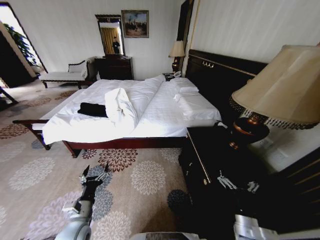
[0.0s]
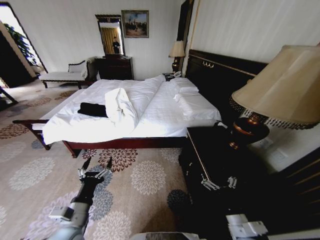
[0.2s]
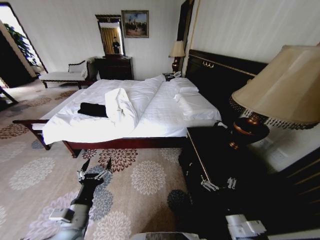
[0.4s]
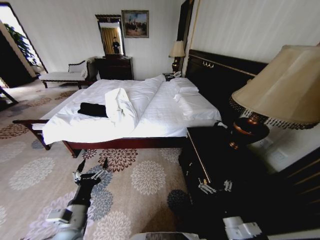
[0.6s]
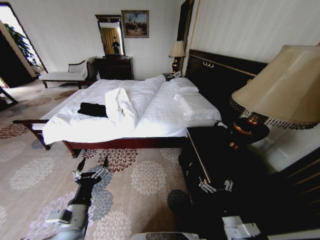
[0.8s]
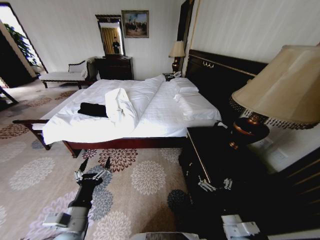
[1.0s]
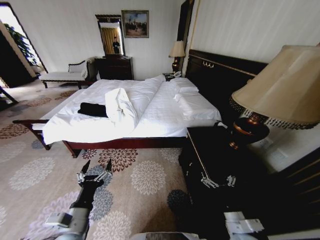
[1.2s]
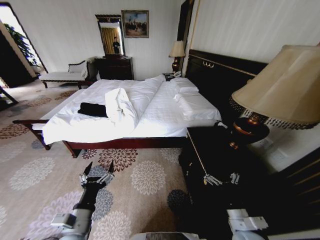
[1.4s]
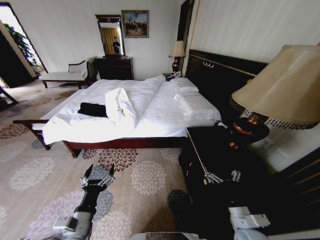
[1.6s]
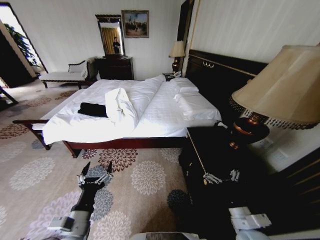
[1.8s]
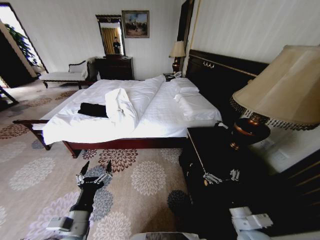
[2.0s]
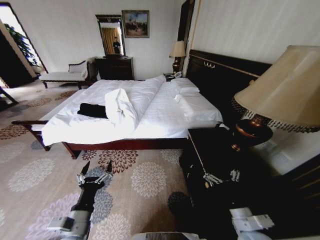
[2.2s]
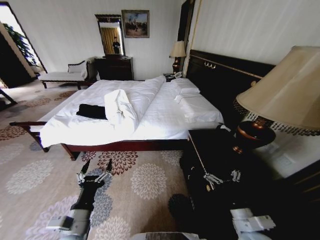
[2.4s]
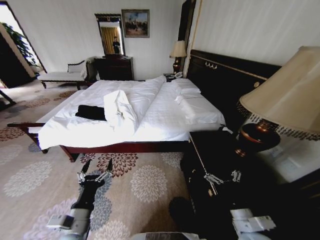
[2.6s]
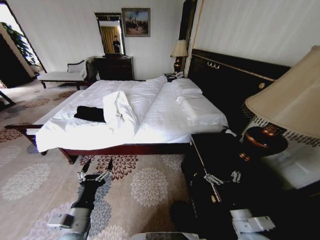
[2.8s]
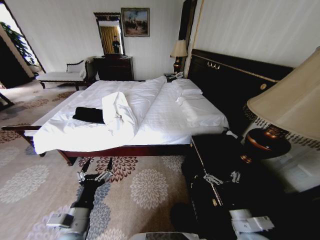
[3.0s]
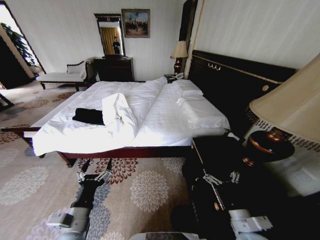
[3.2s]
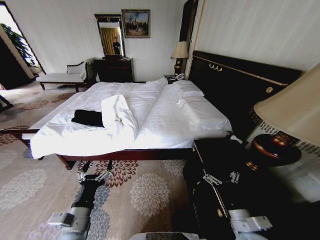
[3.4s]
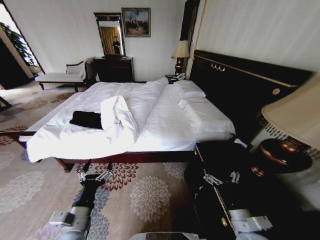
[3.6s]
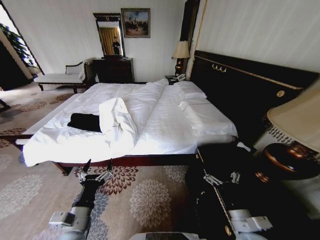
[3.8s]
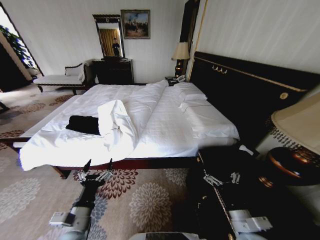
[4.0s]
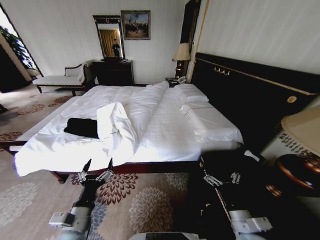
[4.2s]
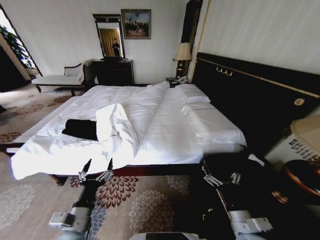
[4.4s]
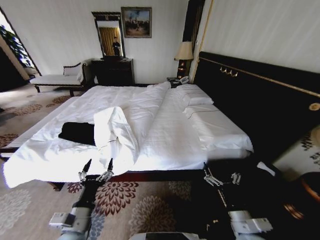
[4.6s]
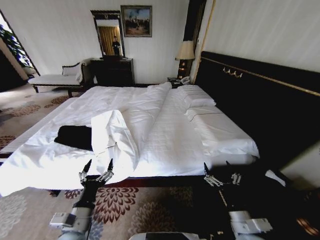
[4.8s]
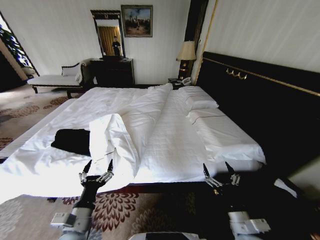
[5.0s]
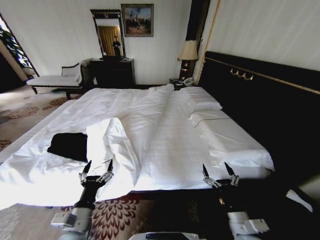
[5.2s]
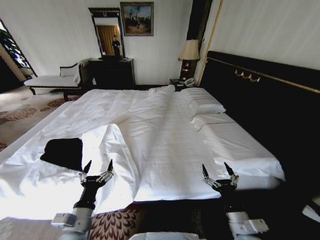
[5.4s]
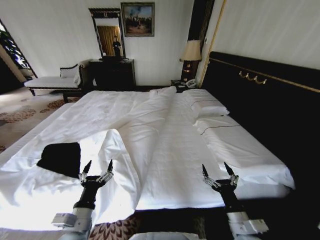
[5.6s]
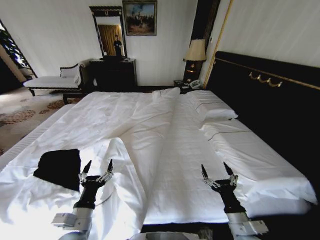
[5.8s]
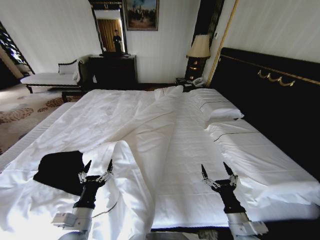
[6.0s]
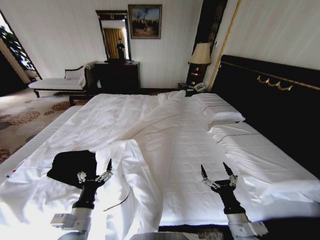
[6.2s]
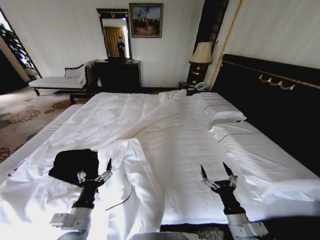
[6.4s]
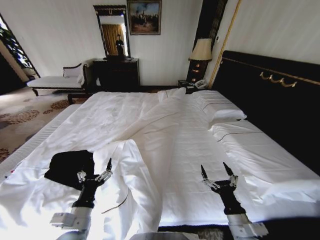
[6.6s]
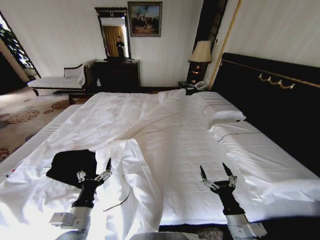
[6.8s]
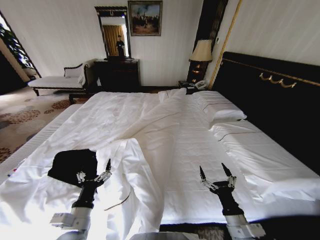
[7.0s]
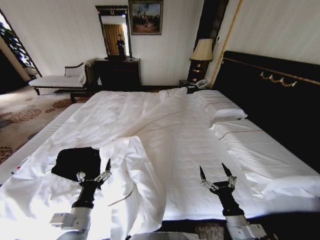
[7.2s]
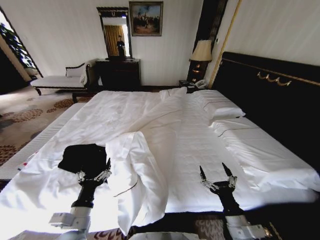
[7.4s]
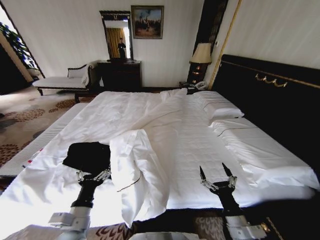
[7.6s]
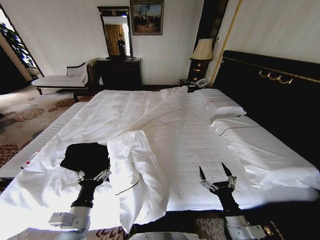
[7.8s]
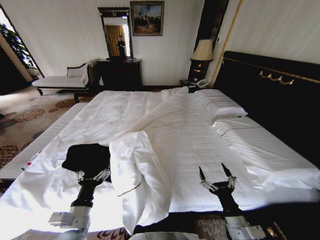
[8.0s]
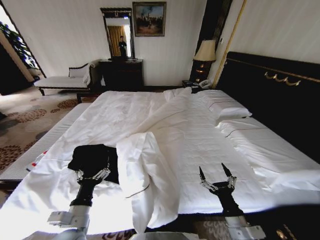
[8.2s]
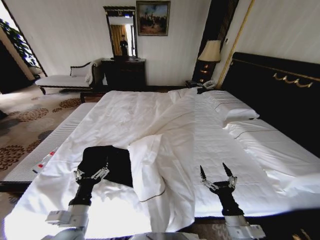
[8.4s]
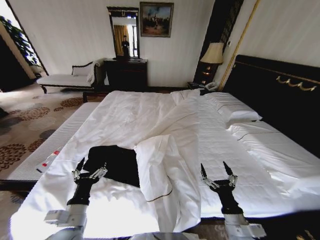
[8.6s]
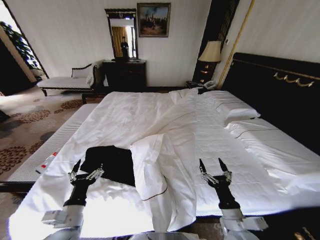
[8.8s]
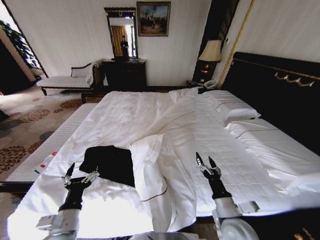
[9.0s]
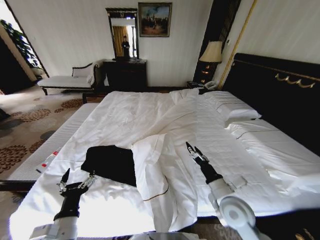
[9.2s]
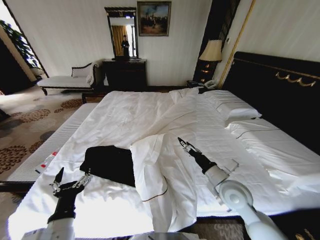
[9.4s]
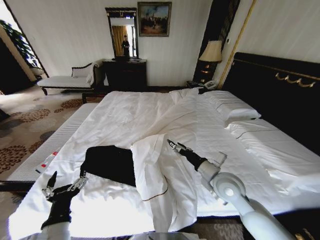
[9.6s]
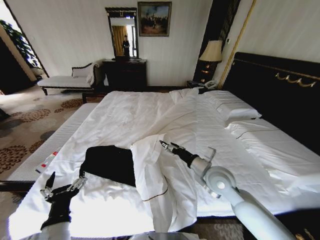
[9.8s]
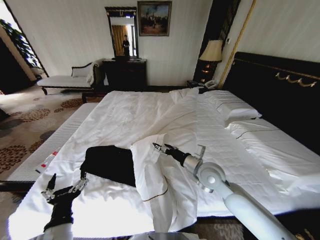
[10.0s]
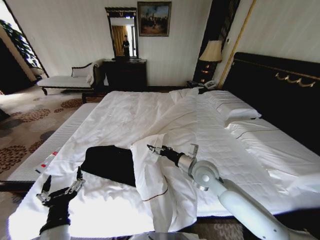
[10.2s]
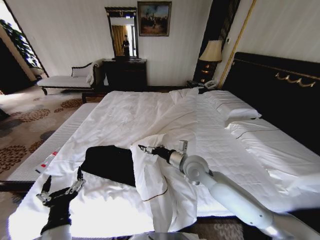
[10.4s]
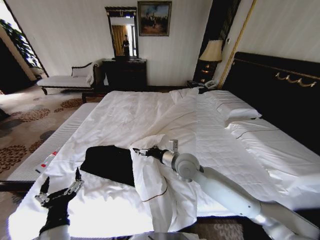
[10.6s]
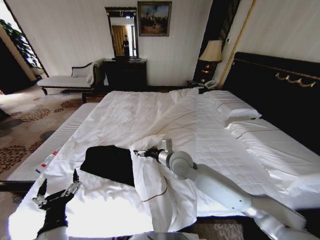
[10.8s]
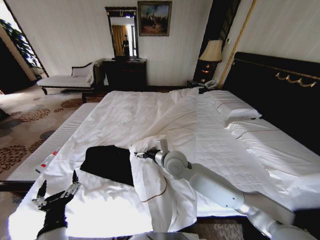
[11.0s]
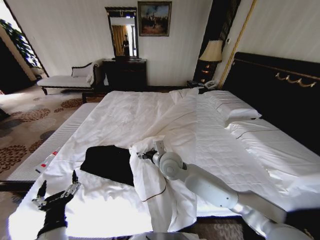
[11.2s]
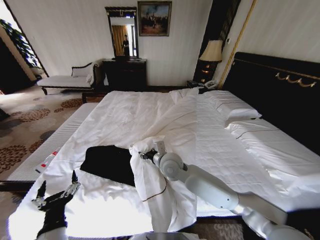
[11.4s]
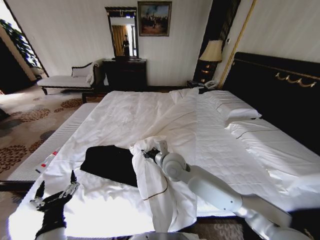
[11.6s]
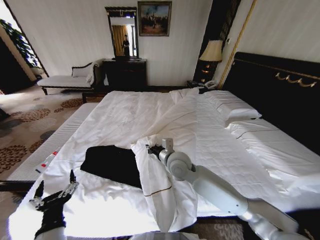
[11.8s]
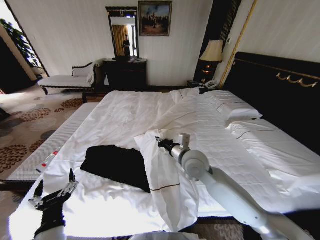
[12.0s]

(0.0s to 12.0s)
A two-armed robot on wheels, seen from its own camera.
Task of the whole recording: Fold the clothes on the bed.
7.6s - 9.0s: The right gripper moves approximately 5 cm.
9.0s - 10.4s: The left gripper changes place by about 5 cm, while the right gripper shifts roughly 25 cm forward, to the left and upward.
10.4s - 12.0s: The right gripper reaches about 10 cm to the left, then returns, and closes.

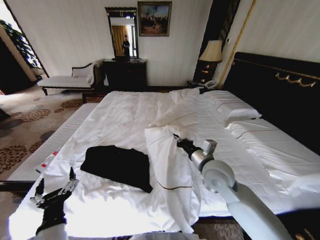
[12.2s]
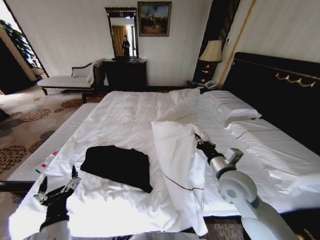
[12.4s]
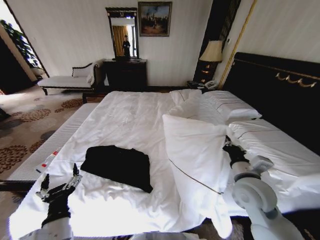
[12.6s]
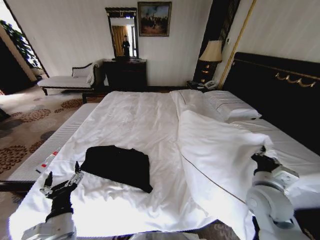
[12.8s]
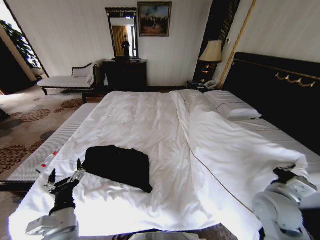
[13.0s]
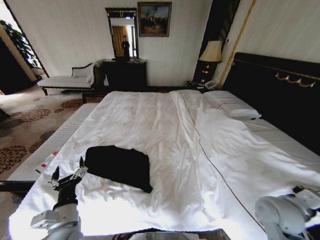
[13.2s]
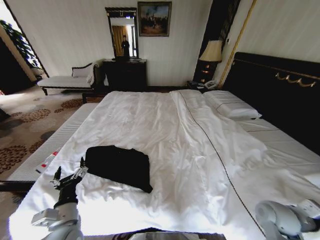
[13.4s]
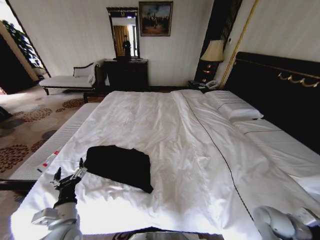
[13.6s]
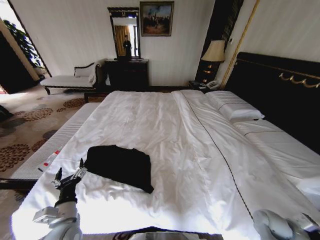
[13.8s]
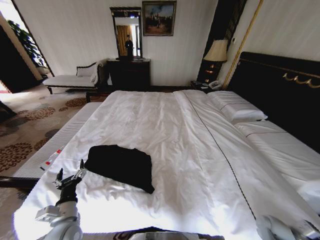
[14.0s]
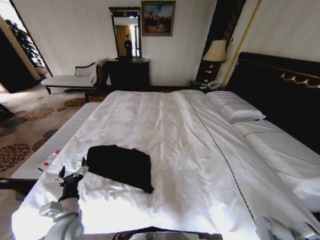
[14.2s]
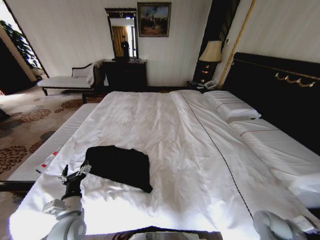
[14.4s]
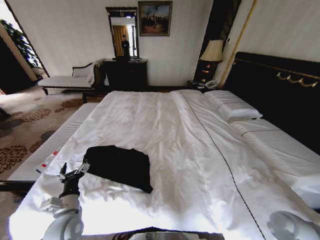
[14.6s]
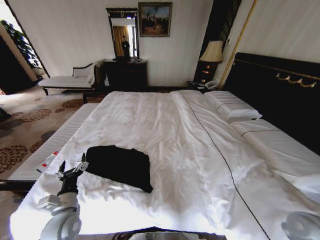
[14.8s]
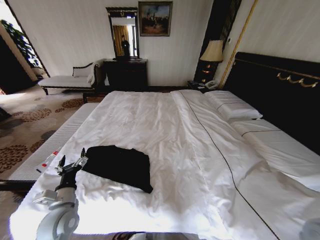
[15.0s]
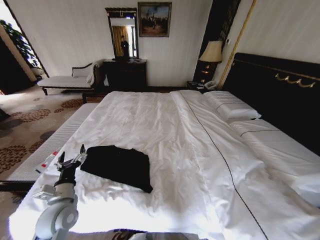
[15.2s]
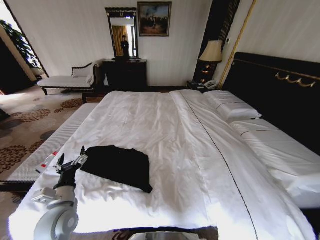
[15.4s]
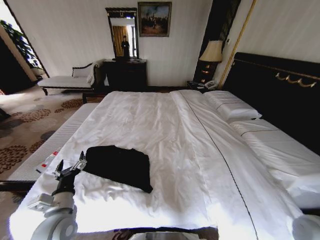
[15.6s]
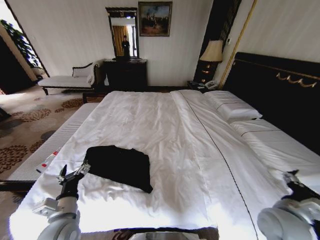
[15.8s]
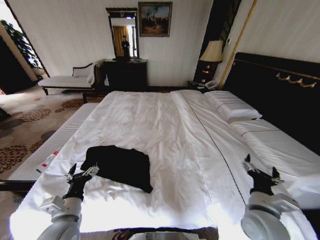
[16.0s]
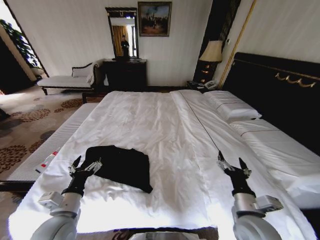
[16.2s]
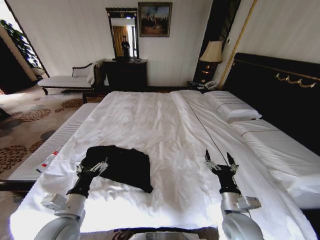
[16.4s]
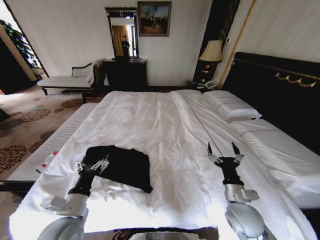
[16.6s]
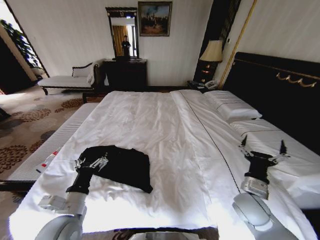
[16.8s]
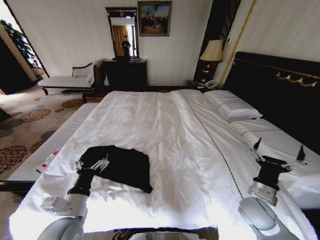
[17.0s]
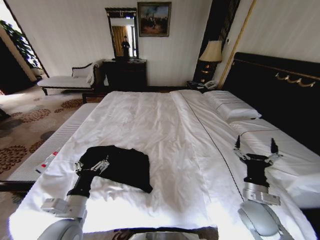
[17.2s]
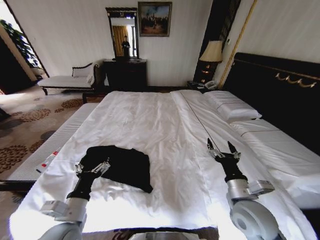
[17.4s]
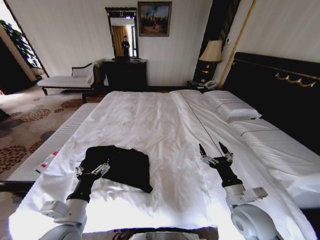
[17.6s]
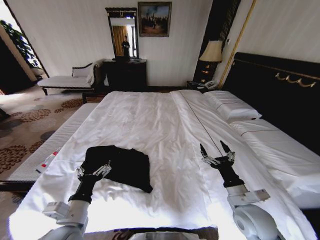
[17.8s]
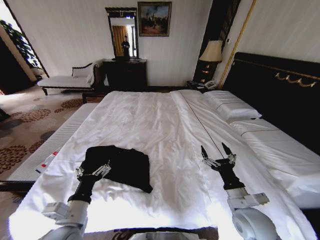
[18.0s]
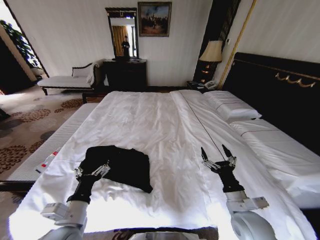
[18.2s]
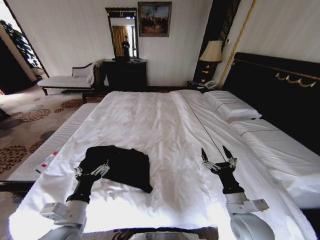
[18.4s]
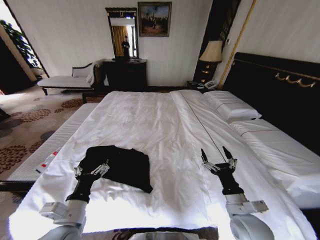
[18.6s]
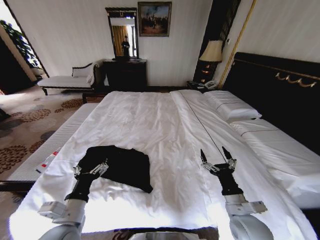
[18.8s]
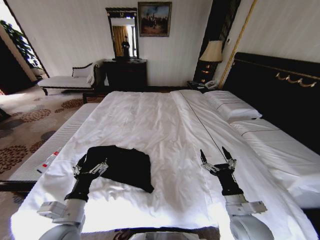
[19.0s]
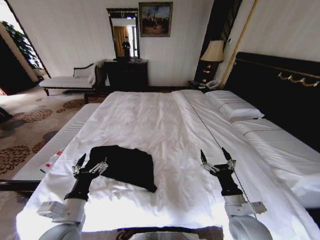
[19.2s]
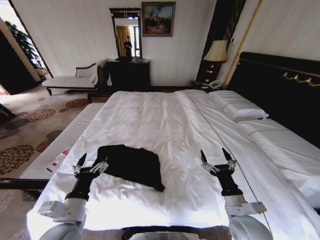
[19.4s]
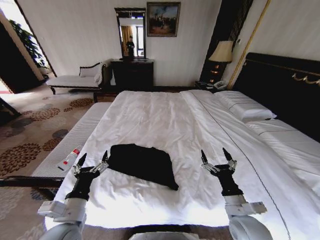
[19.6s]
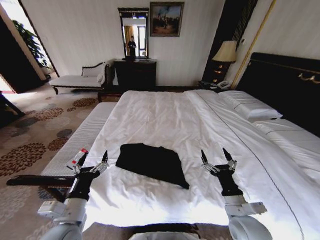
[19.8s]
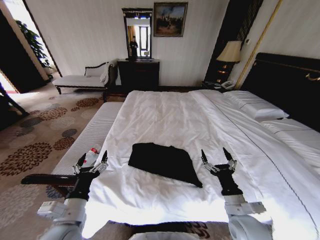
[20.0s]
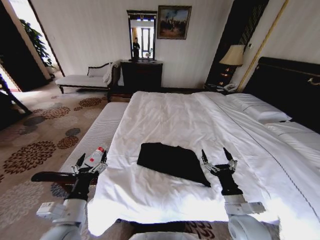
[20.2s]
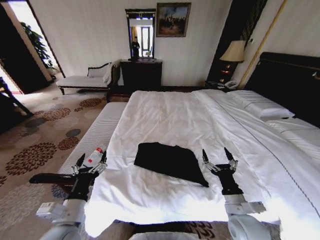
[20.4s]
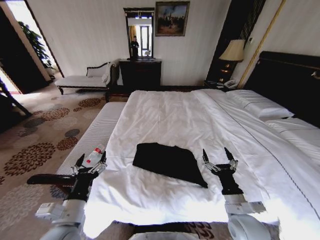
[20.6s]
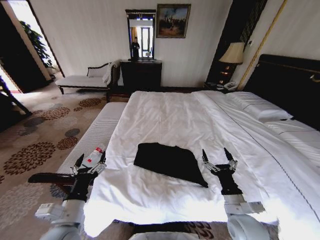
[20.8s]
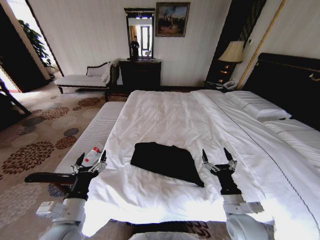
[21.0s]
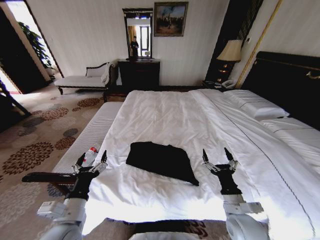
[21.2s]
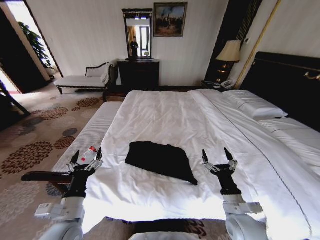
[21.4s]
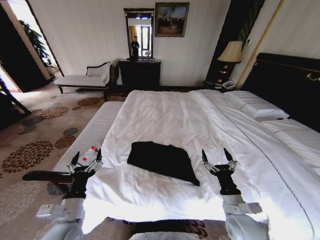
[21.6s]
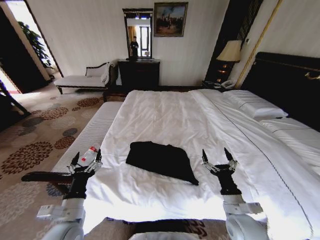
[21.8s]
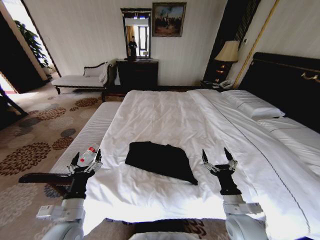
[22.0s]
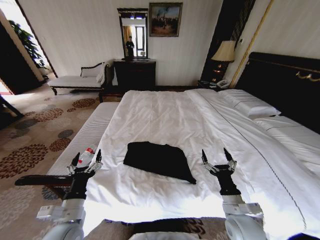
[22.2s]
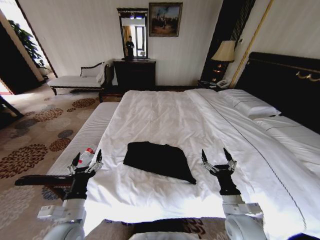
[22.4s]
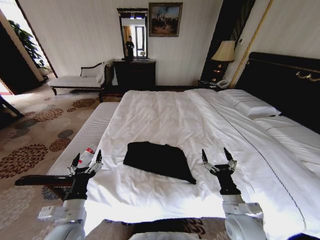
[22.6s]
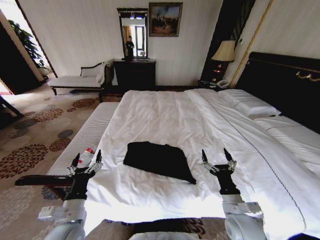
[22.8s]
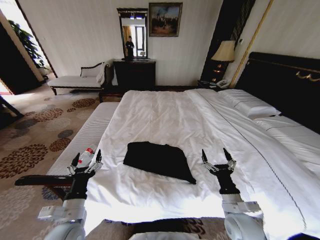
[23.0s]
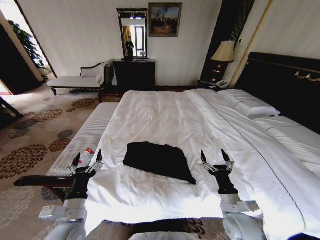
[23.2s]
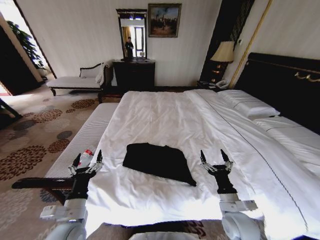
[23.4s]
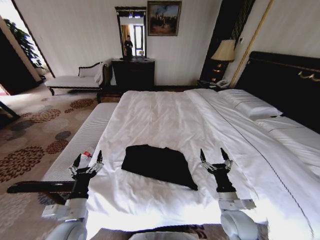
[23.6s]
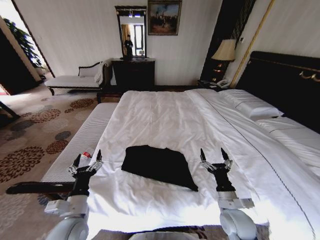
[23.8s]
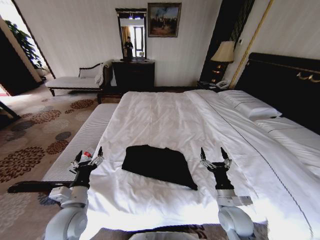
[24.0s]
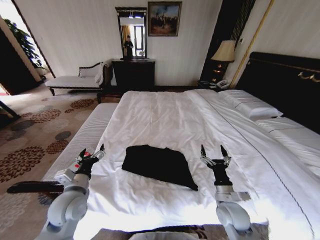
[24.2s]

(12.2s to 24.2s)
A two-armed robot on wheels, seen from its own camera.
Task of the whole recording: Fold the clothes on the bed.
12.2s - 13.8s: The right gripper moves to the right, downward and backward, approximately 35 cm. The left gripper shifts roughly 5 cm forward.
13.8s - 15.2s: The left gripper goes roughly 5 cm forward, while the right gripper shifts about 25 cm upward and backward, and opens up.
15.2s - 16.6s: The right gripper moves to the left, downward and forward, approximately 20 cm. The left gripper is displaced to the right by some 5 cm.
22.6s - 24.2s: The left gripper is displaced forward by approximately 10 cm. Meanwhile the right gripper ends up some 5 cm from where it was.
